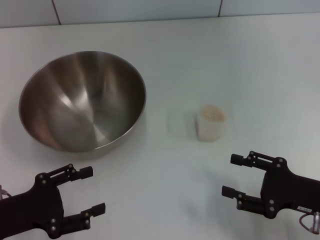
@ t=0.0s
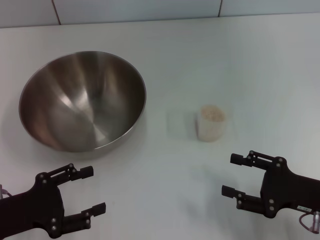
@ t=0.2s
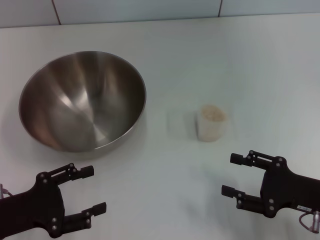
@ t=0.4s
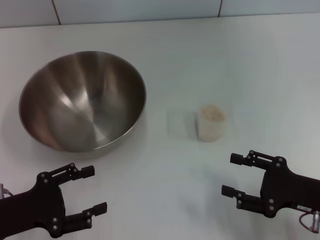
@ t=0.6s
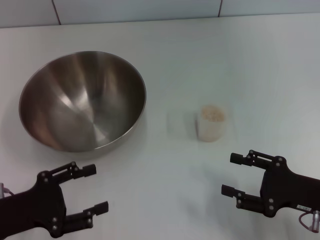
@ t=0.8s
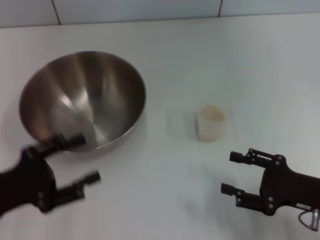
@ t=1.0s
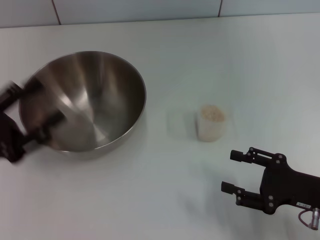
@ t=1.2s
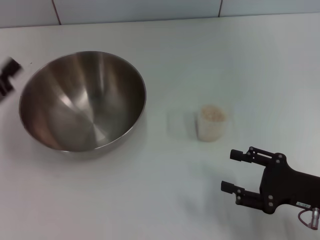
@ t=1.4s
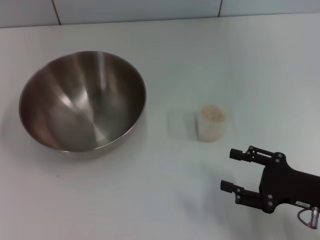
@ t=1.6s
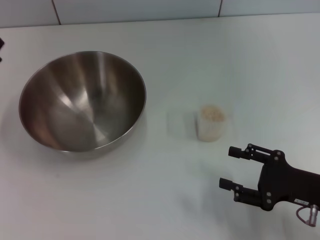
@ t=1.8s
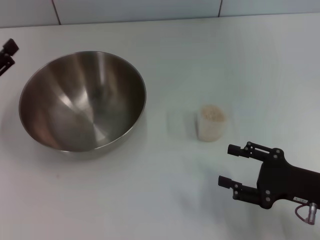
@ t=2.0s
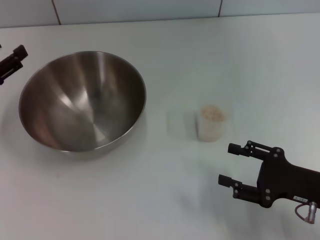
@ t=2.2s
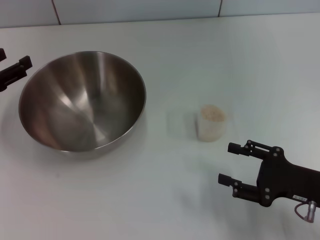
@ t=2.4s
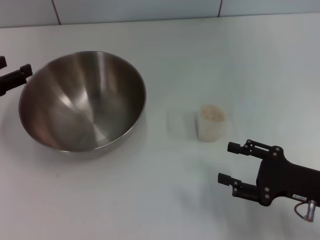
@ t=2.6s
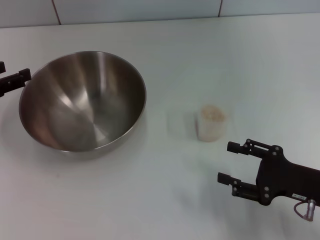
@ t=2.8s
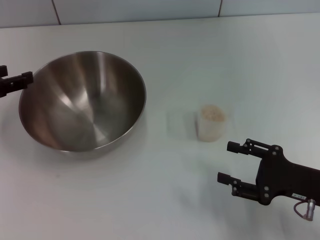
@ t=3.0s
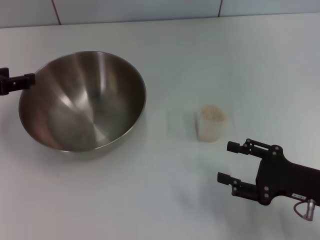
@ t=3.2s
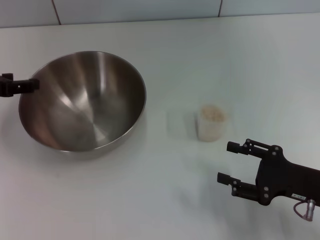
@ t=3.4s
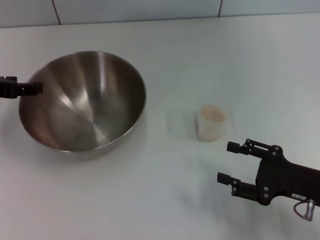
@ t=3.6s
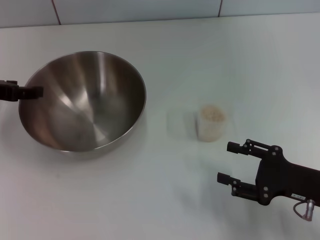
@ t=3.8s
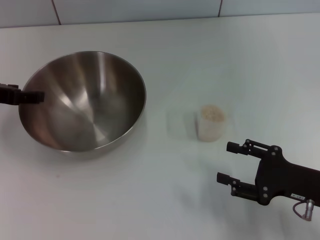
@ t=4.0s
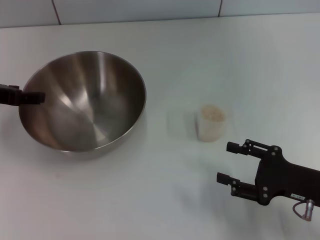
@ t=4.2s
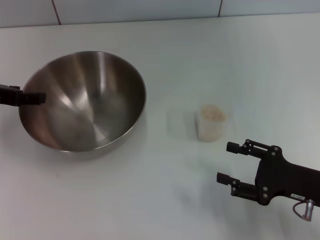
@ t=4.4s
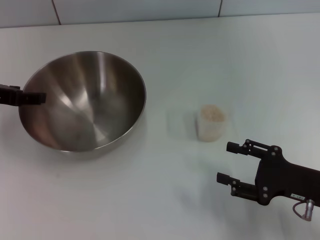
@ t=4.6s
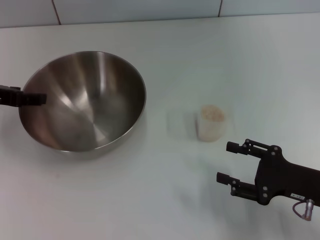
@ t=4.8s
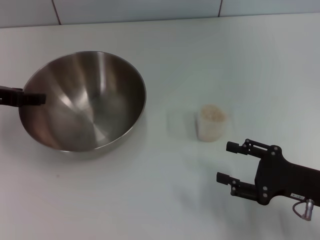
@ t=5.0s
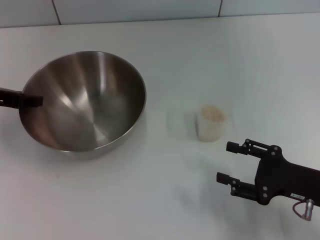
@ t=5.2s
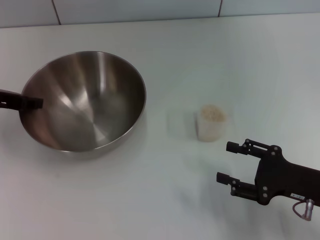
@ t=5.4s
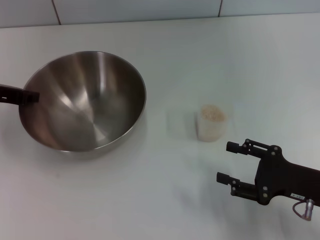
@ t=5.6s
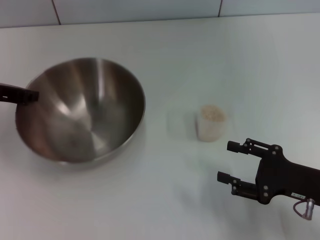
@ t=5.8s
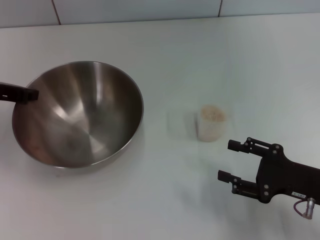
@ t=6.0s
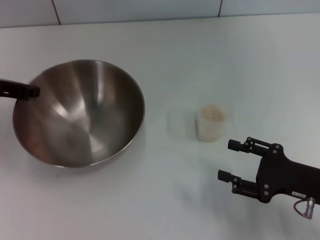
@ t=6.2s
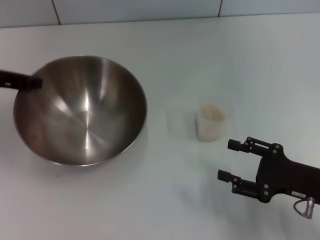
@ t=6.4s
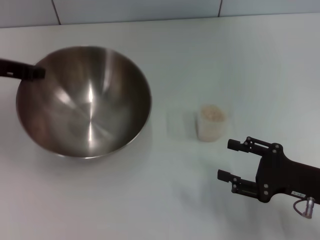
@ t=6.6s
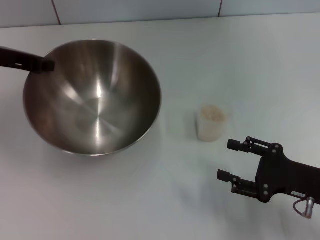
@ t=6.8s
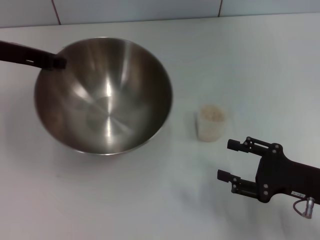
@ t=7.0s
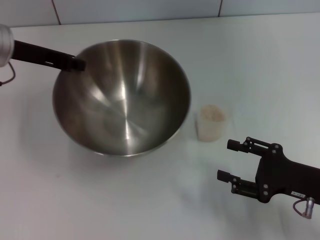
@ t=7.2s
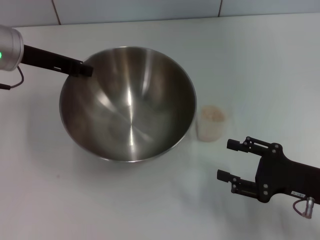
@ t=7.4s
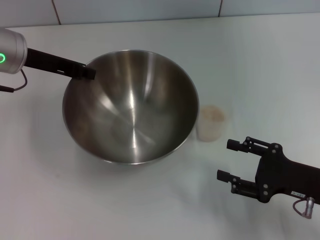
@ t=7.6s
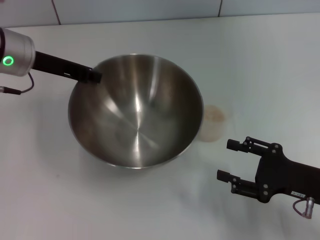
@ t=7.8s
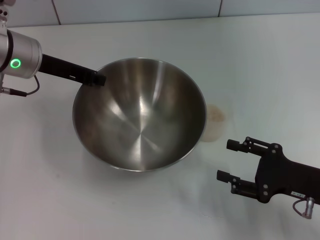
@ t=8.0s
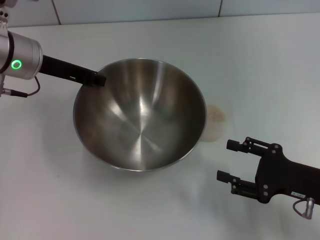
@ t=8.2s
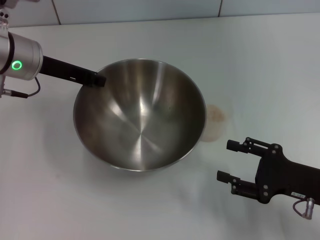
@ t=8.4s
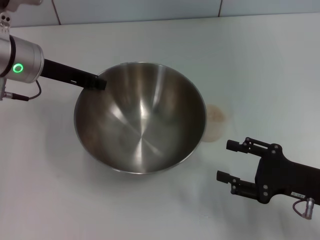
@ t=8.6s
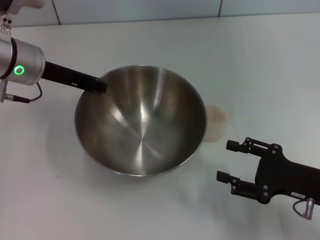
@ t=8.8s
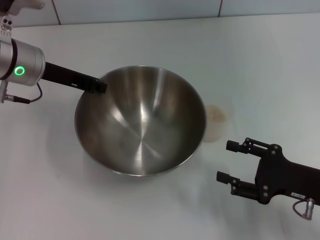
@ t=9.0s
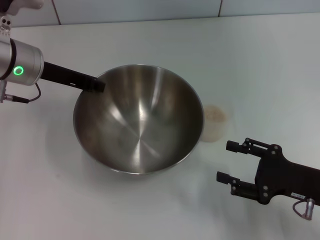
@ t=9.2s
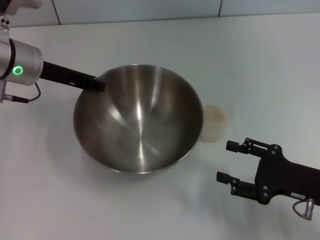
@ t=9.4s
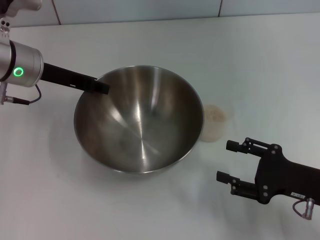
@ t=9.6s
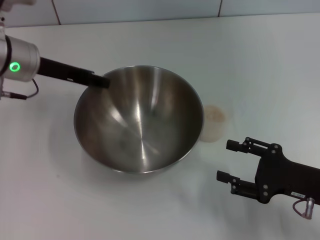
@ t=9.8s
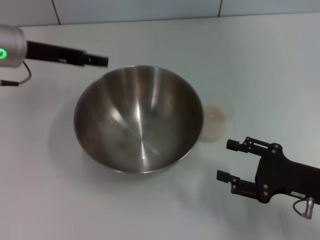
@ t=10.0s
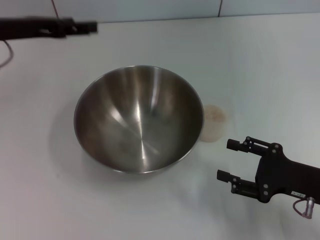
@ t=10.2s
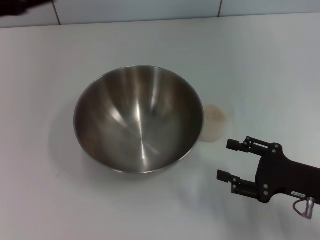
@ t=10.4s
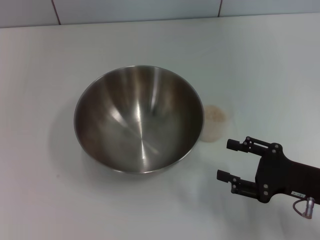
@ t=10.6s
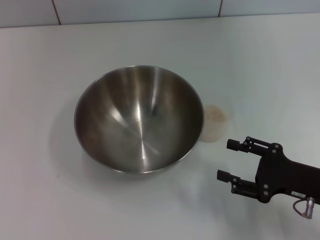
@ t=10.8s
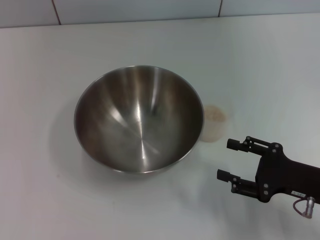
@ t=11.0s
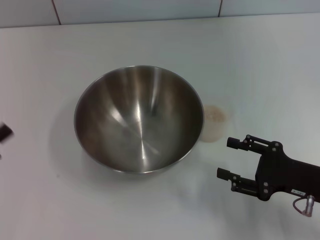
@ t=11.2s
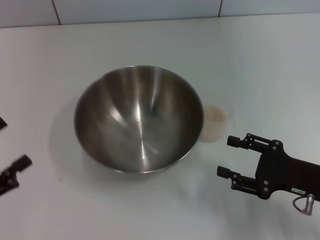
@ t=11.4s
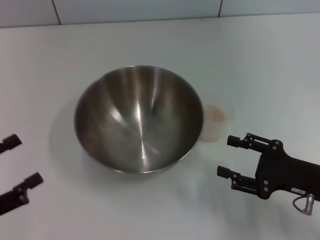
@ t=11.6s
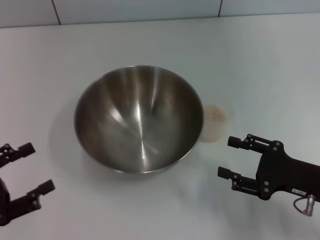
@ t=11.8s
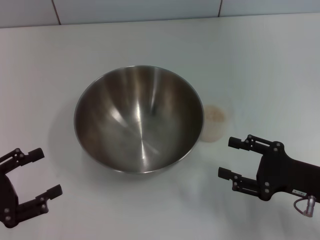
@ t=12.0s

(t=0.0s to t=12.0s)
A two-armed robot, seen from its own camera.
Task of the whole recording: Place the bowl in the middle of the table with one hand and pour the rice from the grain cup into it with the other hand.
Step, t=0.0s - t=6.8s: Pick up the bowl with the left gripper.
Step, t=7.0s - t=10.0s: Place the bowl in the center of view with the left gripper.
t=0.0s - t=1.6s: The left gripper travels forward by about 5 cm.
t=1.6s - t=3.0s: The left gripper is displaced forward by about 5 cm.
t=3.0s - t=4.4s: The grippers move only a little.
t=4.4s - t=6.0s: The left gripper closes up.
t=6.0s - t=7.6s: The left gripper heads to the right, covering some 5 cm.
t=7.6s - t=9.0s: The grippers stay close to where they were, moving slightly.
t=9.0s - t=10.4s: The left gripper goes roughly 10 cm to the left, and opens.
t=10.4s - t=12.0s: The left gripper is displaced backward and downward by approximately 25 cm.

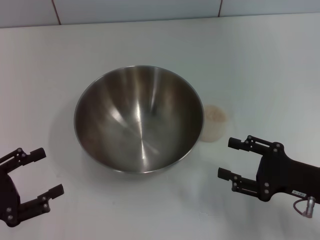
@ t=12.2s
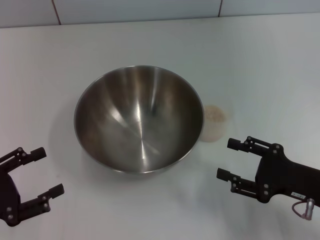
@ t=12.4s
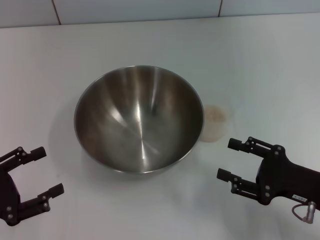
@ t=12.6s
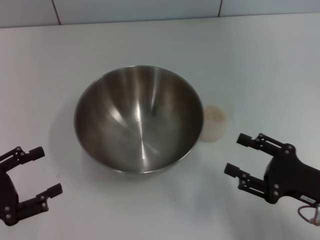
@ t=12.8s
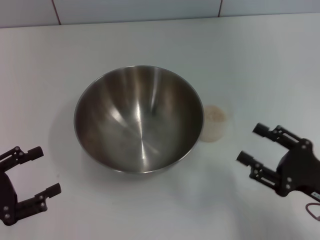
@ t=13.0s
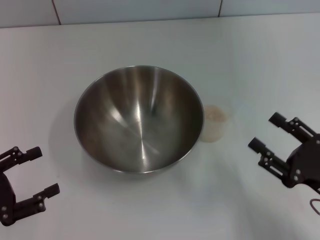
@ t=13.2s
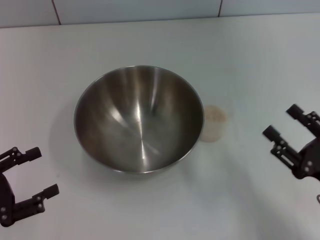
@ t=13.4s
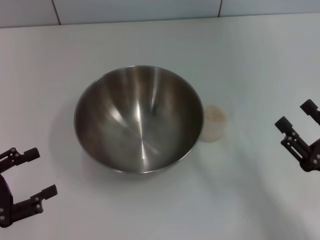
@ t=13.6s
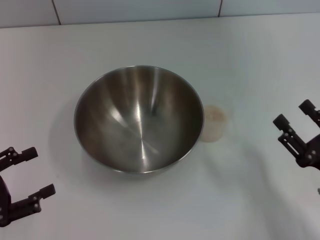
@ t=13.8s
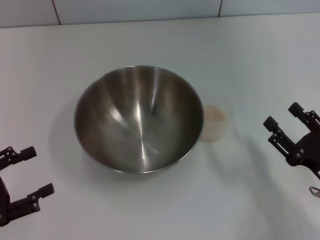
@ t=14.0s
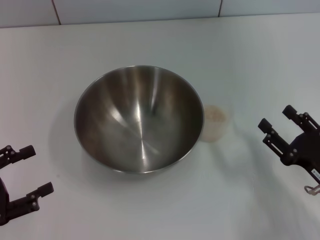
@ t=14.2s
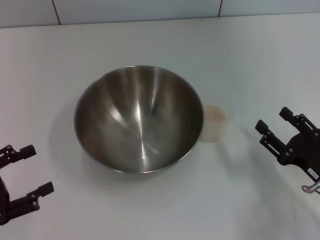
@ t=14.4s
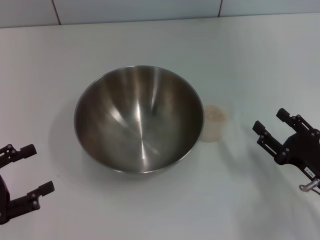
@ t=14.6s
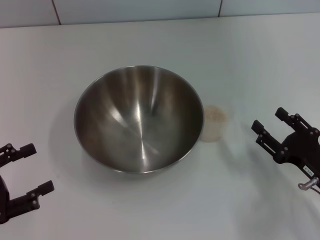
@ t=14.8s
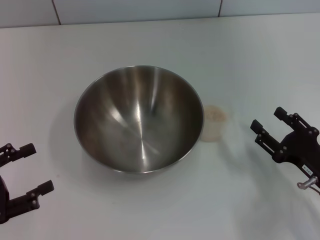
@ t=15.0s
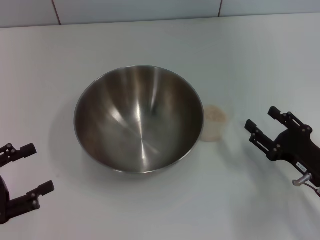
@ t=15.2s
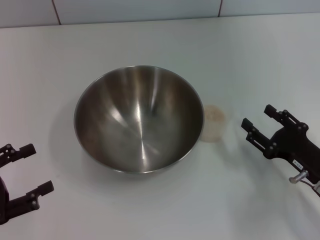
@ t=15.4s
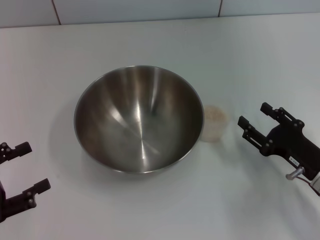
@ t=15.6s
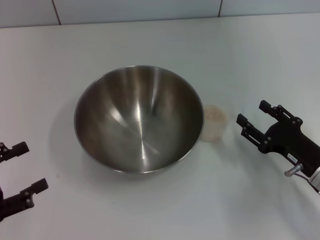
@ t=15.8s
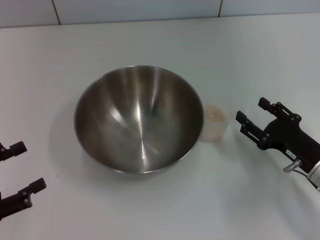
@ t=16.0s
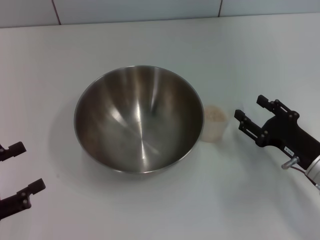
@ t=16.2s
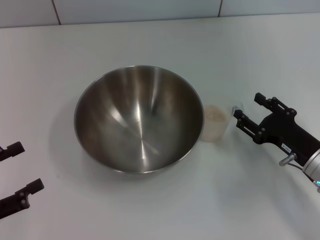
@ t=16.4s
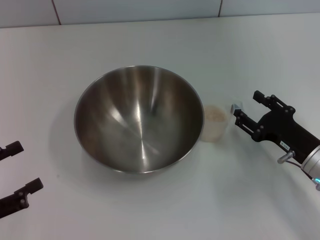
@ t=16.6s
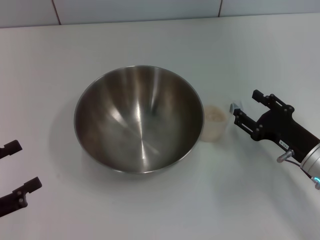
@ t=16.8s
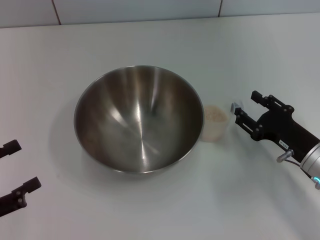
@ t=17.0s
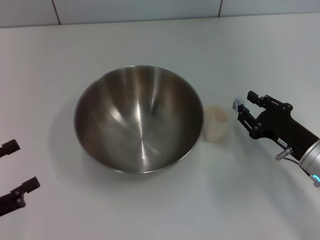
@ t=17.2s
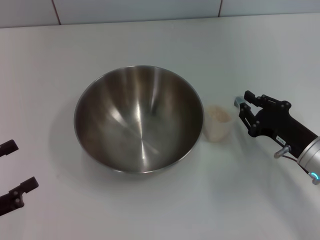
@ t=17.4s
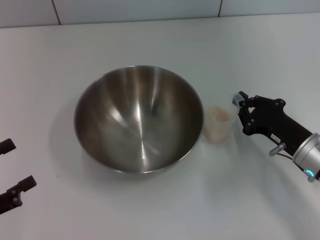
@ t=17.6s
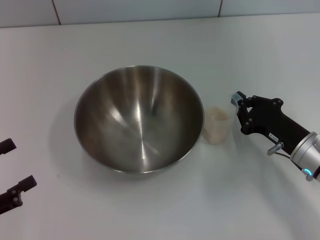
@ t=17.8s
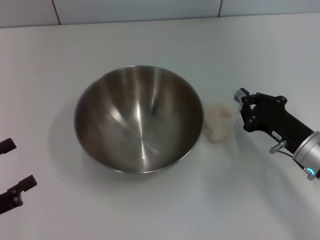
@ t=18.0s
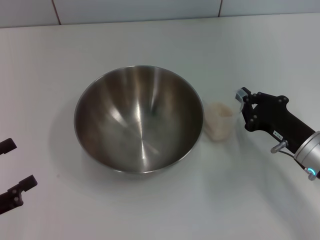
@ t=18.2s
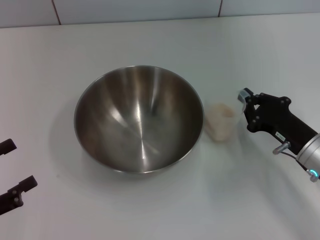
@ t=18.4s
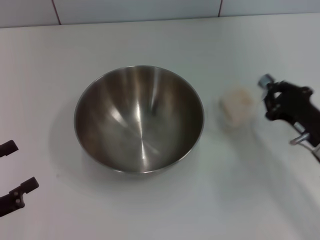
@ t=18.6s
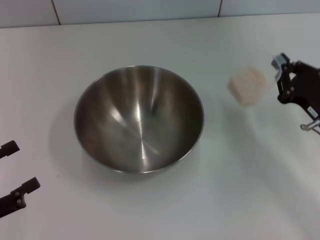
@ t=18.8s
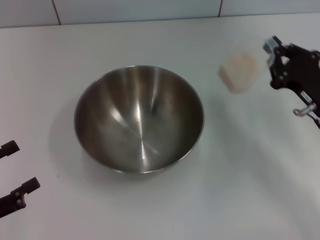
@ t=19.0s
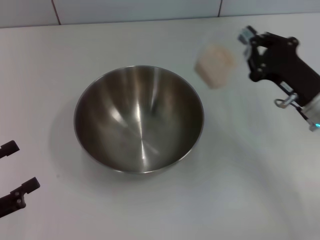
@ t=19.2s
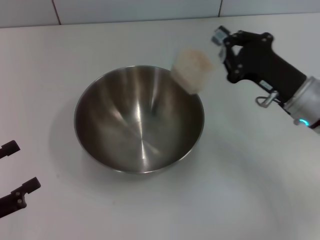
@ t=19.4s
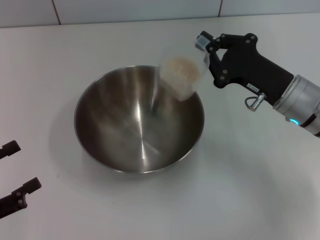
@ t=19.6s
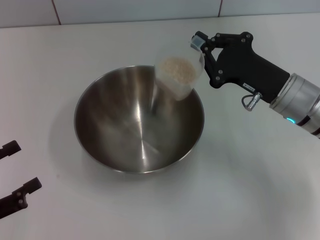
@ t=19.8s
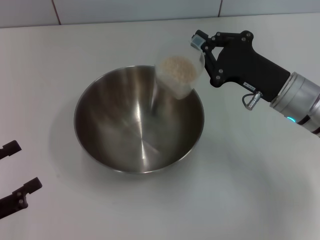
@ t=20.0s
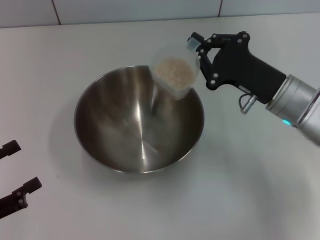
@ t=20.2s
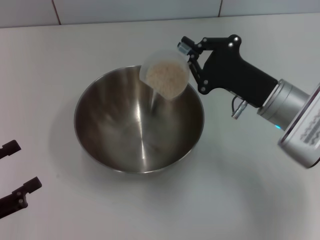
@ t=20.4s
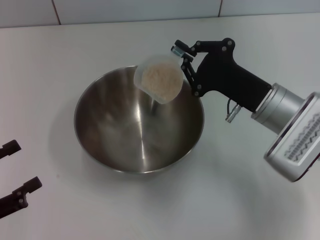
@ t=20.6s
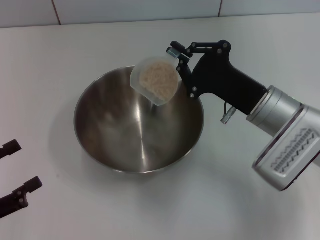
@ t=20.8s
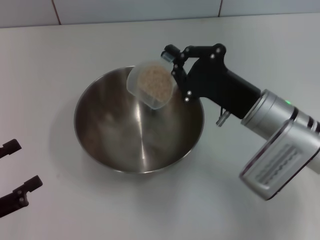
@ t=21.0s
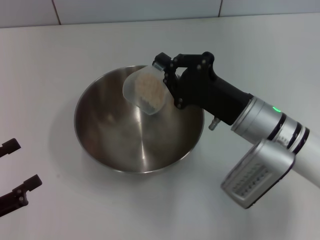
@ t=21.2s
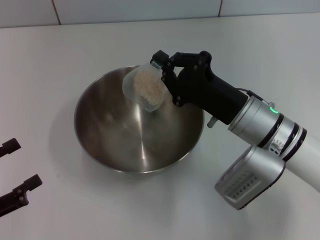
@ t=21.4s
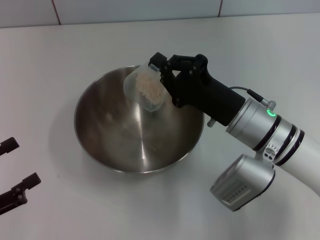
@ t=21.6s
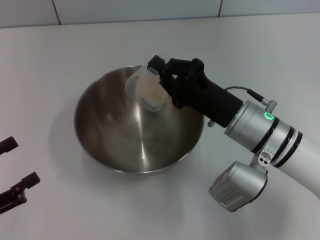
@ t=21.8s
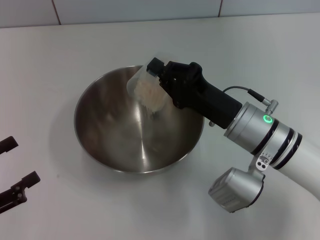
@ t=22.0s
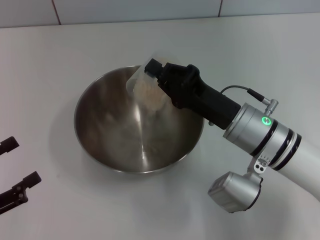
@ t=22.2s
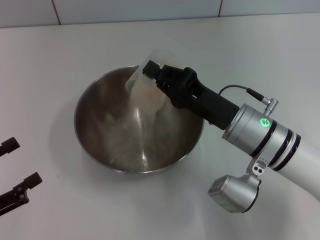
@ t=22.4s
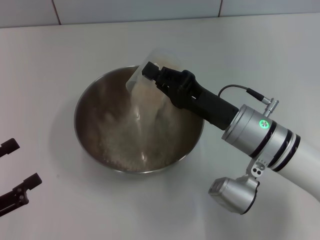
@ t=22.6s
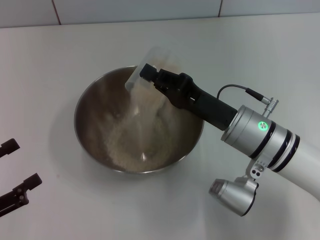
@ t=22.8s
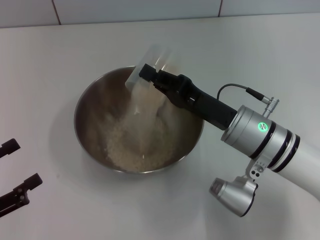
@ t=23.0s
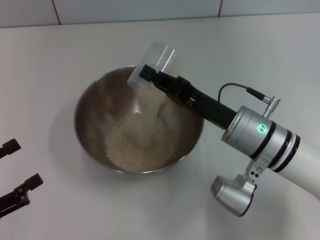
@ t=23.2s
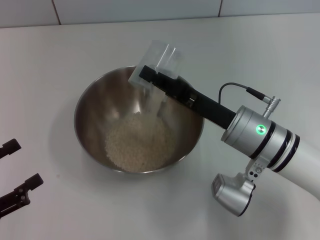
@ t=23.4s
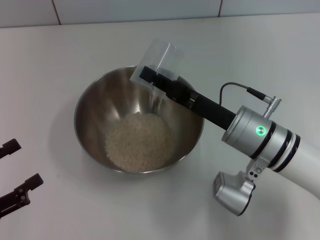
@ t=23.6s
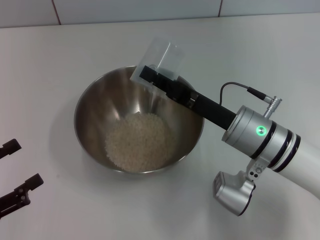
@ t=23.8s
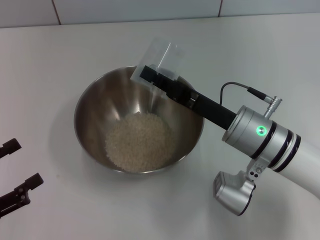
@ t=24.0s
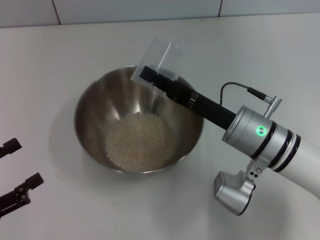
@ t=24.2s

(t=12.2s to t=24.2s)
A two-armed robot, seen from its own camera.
Task of the whole recording: Place the bowl in the middle of the table with one hand and pour the rice from the grain cup into it with the other hand.
Step, t=12.2s - t=19.2s: Pick up the cup with rice in it with the right gripper.
t=13.8s - t=15.2s: The grippers make only small movements.
t=15.2s - t=16.6s: There are only small adjustments of the grippers.
t=16.6s - t=18.2s: The right gripper closes.
t=18.2s - t=19.8s: The right gripper travels upward and forward by approximately 10 cm.
t=19.8s - t=21.2s: The right gripper moves to the left, some 5 cm.
t=22.6s - t=24.2s: There are only small adjustments of the grippers.
